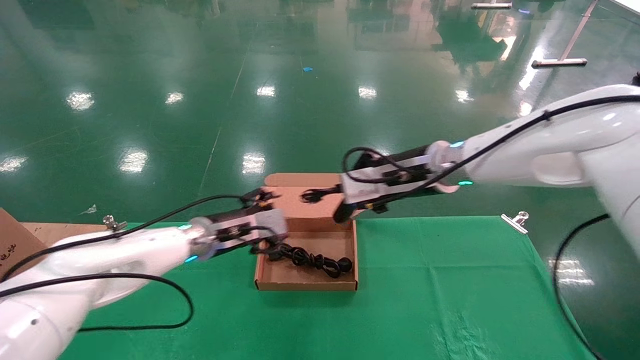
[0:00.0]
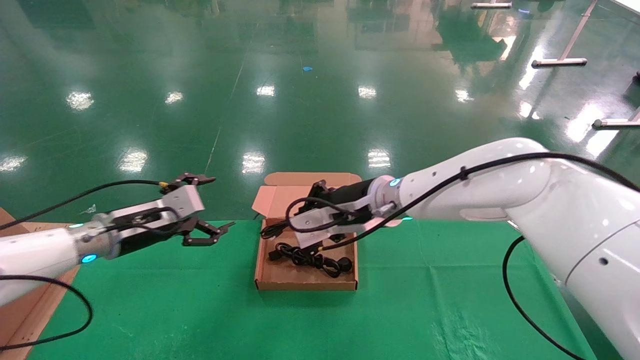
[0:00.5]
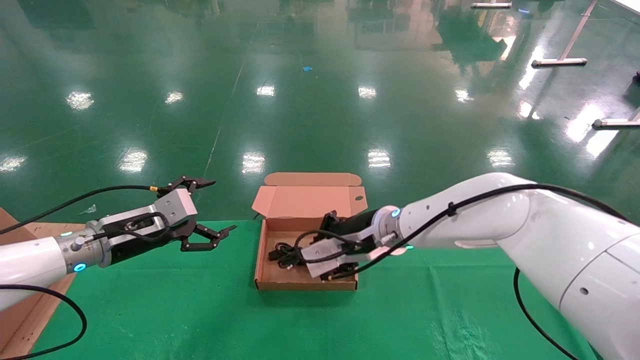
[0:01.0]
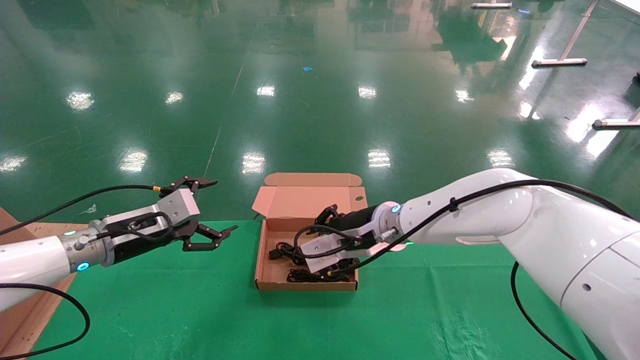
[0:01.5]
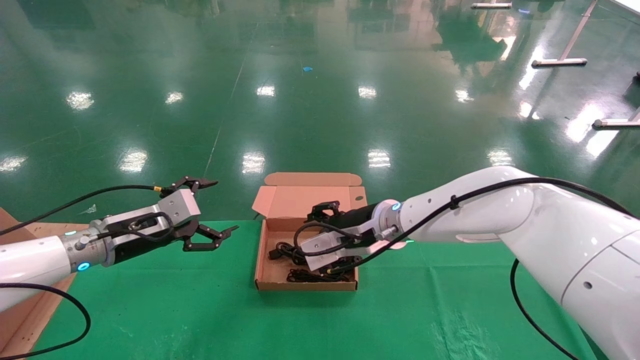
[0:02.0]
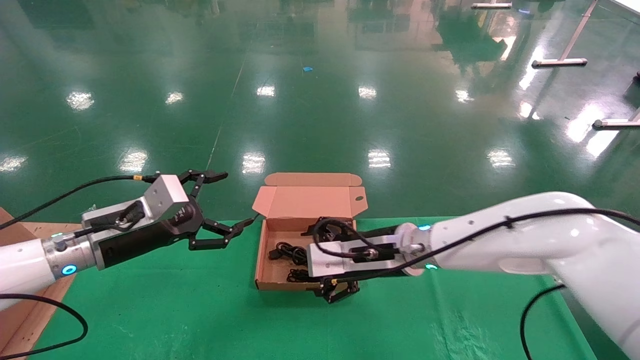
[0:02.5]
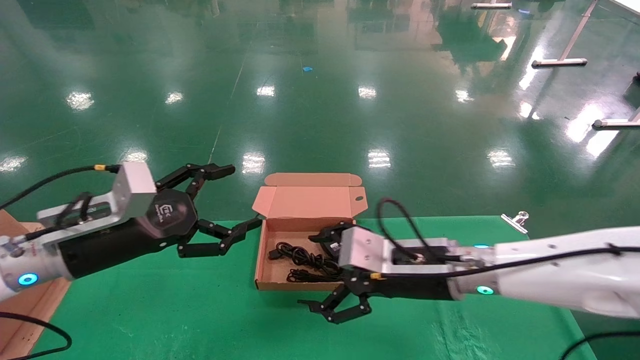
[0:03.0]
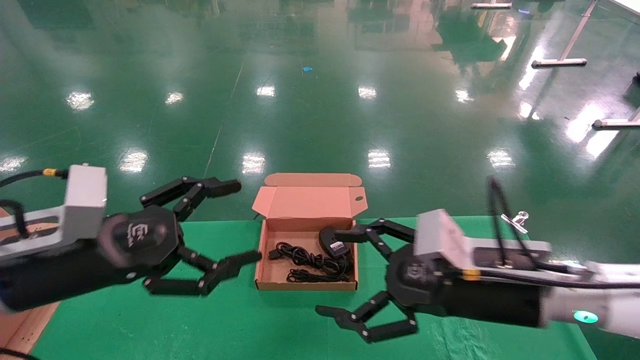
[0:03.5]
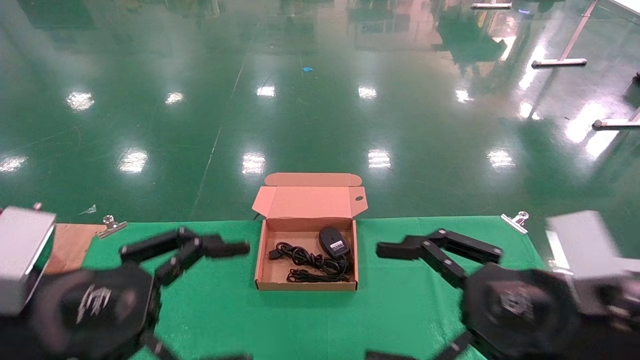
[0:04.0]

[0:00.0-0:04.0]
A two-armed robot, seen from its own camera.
0:00.0 to 0:02.0: The right gripper is displaced downward and to the left by roughly 10 cm, and opens. The left gripper heads to the left and backward, covering roughly 15 cm.
0:02.0 to 0:04.0: The left gripper moves backward, some 25 cm. The right gripper moves backward and to the right, approximately 30 cm, and opens its fingers.
